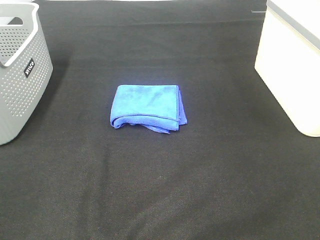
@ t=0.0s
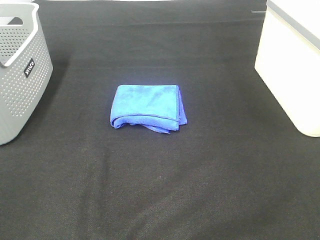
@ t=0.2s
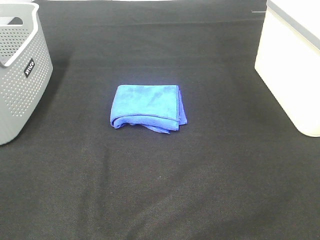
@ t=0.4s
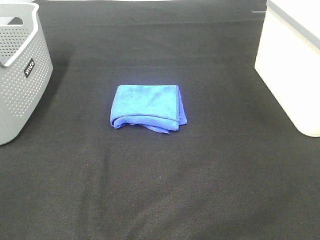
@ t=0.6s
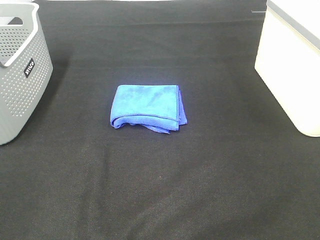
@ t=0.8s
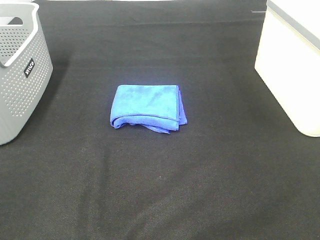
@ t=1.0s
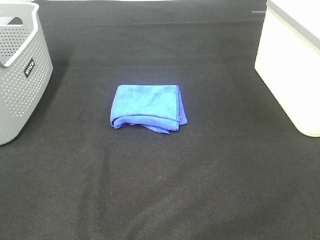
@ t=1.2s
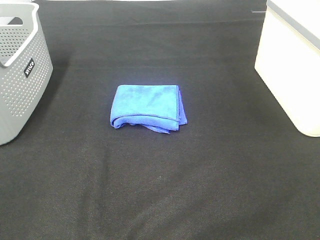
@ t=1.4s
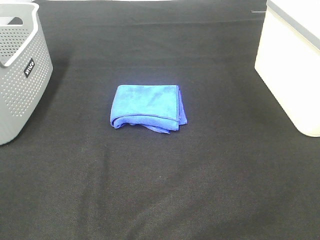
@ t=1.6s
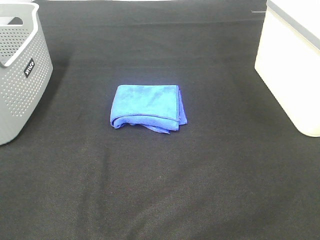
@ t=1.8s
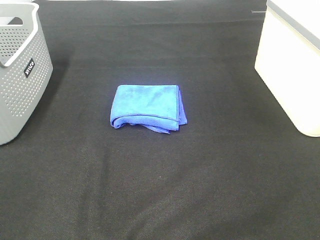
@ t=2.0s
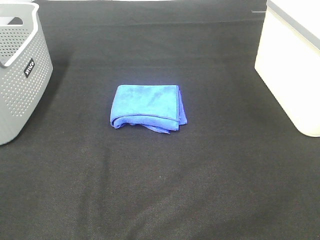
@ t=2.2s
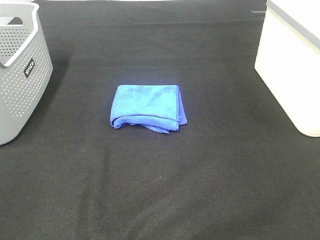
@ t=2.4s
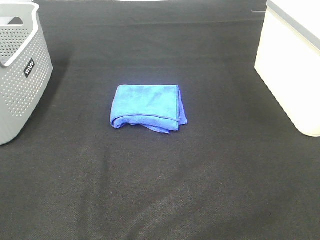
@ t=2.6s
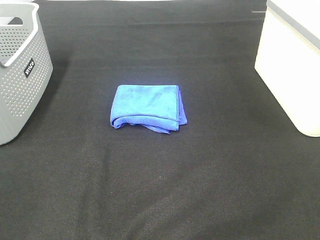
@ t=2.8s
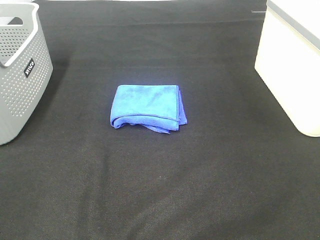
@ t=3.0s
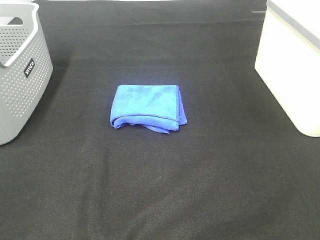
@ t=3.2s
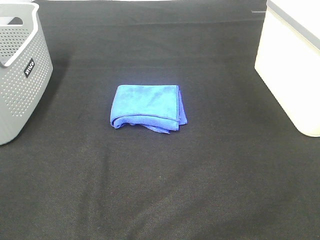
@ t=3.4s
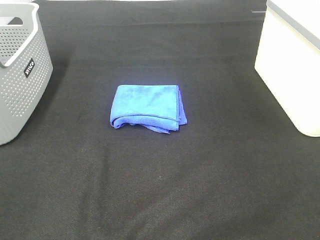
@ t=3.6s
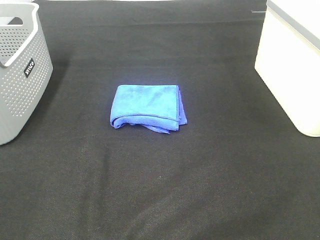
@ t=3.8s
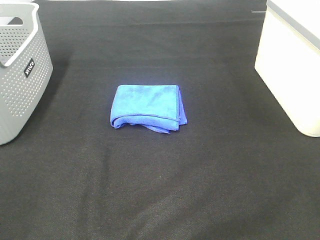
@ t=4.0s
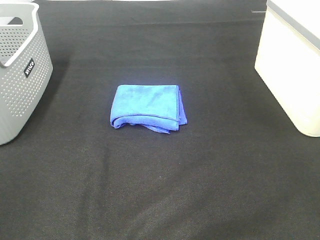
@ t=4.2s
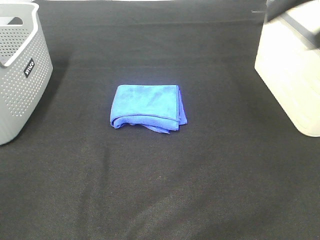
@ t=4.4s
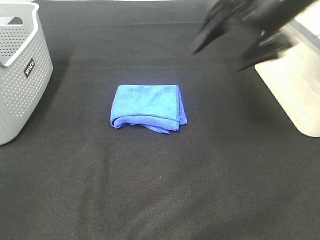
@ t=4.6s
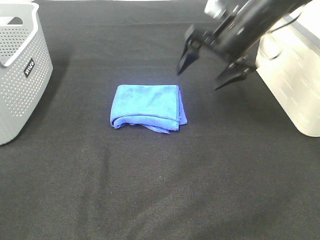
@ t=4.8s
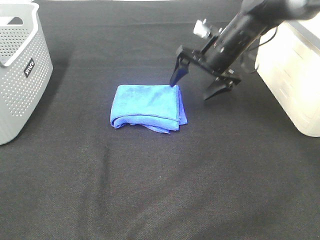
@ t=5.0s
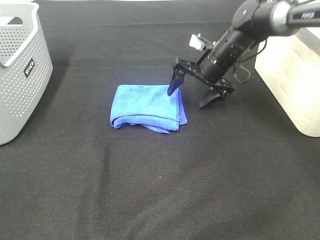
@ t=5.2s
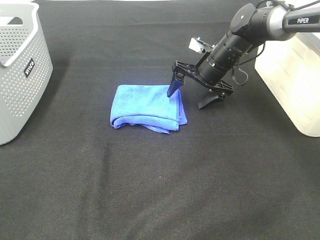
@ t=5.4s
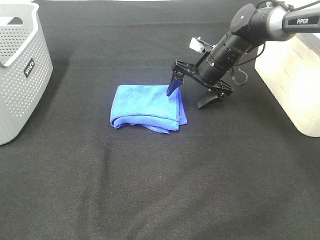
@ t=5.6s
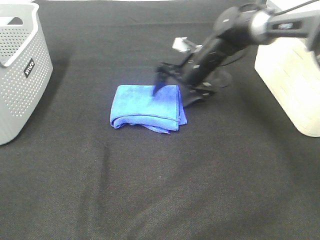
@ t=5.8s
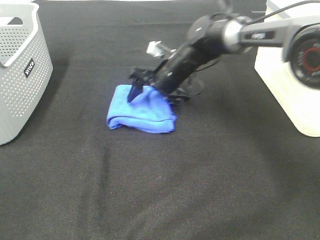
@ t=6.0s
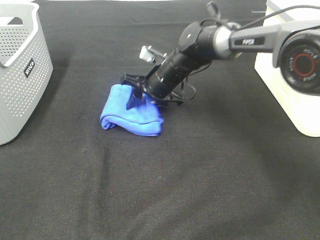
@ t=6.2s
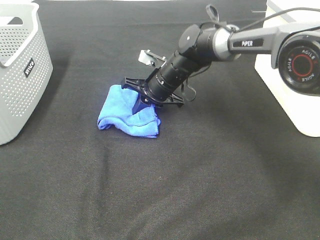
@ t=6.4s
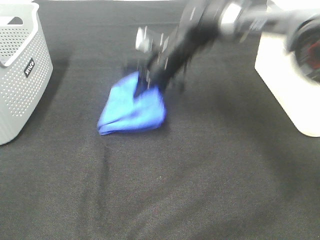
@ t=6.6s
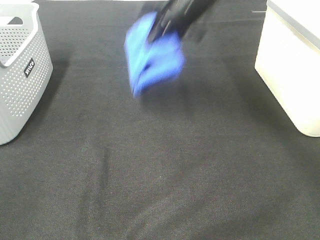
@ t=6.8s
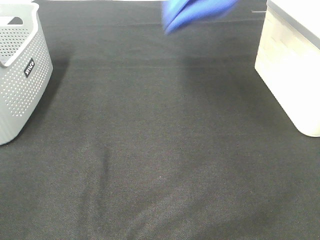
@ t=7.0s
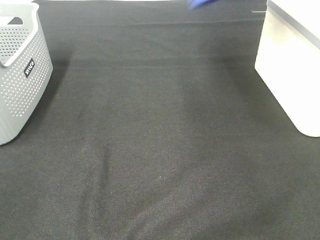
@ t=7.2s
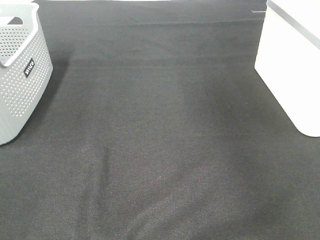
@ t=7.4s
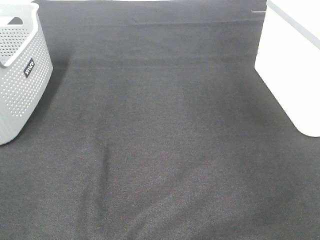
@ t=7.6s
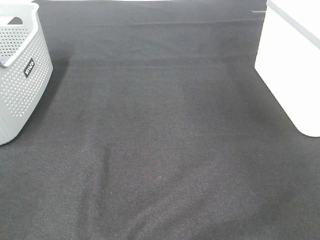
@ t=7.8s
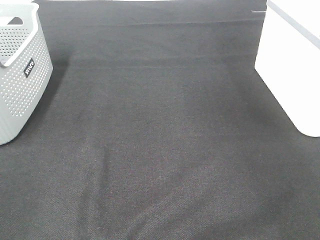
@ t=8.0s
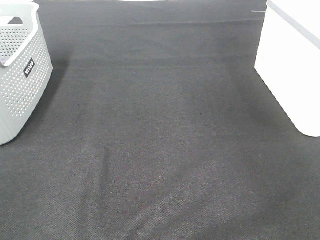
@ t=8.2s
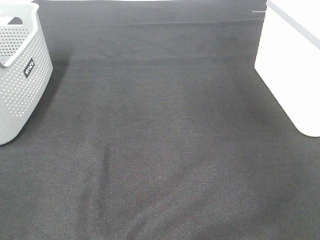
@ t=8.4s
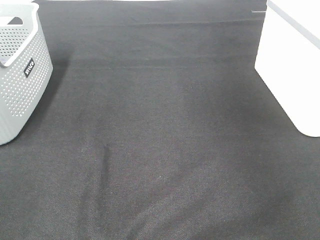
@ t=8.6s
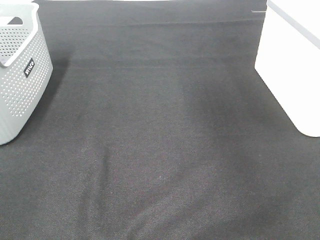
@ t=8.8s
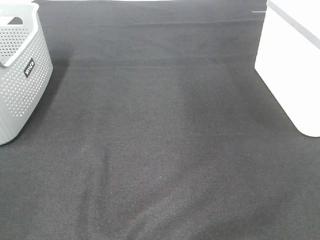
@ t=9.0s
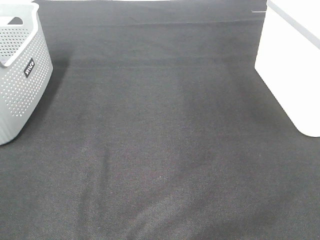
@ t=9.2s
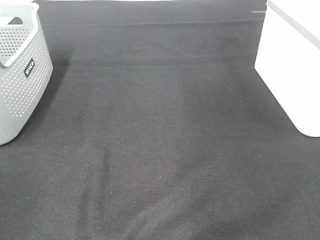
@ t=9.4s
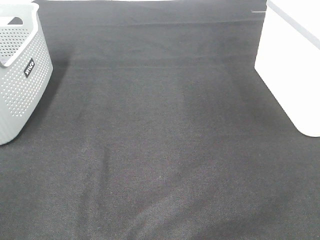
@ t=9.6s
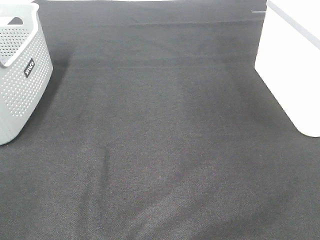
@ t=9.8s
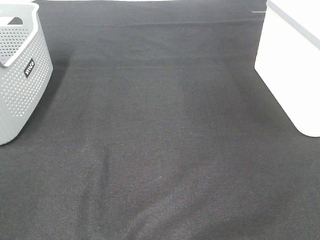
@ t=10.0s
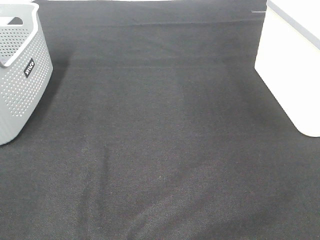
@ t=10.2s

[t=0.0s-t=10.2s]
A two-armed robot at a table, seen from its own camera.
Step, t=0.0s to t=6.2s: Right hand: grab the folded blue towel.
Step, t=6.4s to t=8.0s: Right hand: place the blue towel in right basket.
t=0.0s to t=3.0s: Both grippers stay put.
t=3.0s to t=4.4s: The right gripper is displaced forward by approximately 25 cm.
t=4.4s to t=5.8s: The right gripper is displaced downward, forward and to the left by about 35 cm.
t=5.8s to t=7.2s: The right gripper shifts some 35 cm upward and to the right, and closes.
t=7.2s to t=8.8s: The right gripper goes to the right and returns, some 20 cm each way, and opens its fingers.

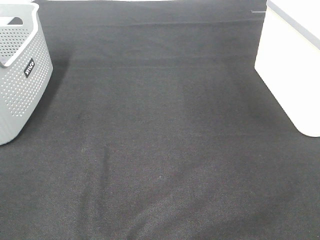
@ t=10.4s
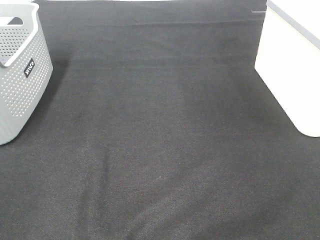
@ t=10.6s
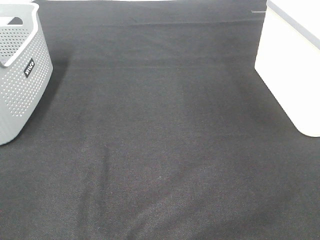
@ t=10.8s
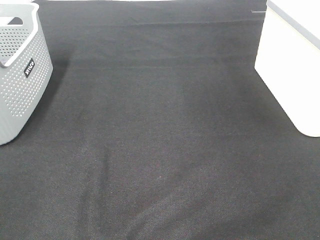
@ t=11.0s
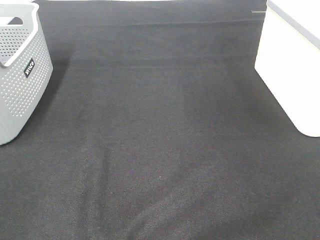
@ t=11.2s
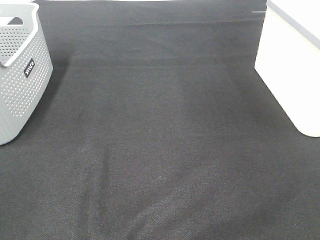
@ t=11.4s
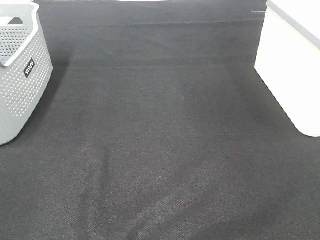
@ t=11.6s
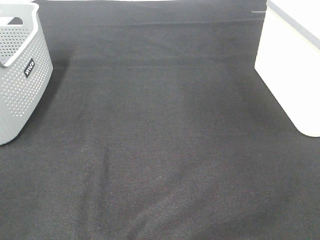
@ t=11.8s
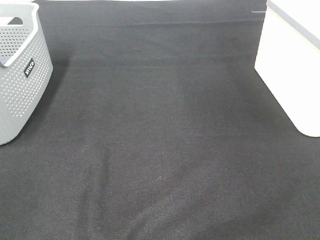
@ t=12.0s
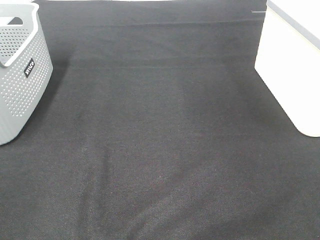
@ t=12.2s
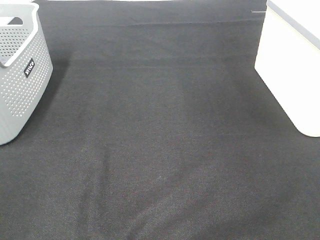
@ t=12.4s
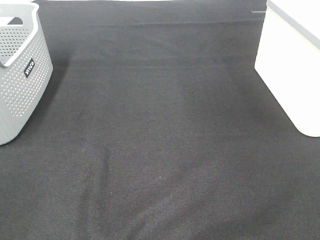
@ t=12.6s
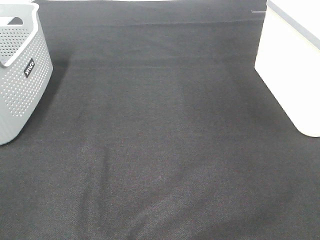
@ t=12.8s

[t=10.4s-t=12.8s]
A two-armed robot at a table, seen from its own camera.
t=11.6s to t=12.8s: Neither gripper changes place.

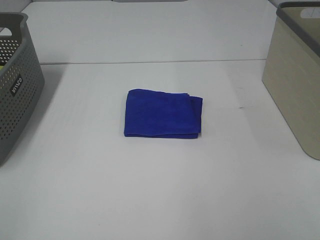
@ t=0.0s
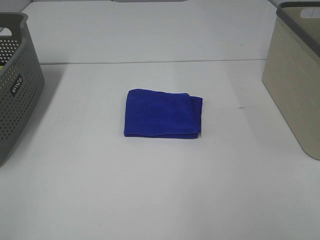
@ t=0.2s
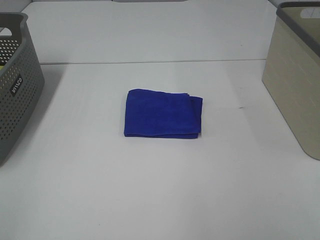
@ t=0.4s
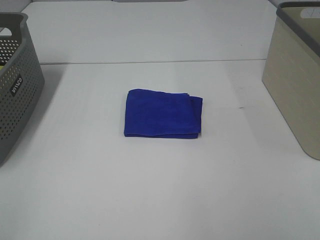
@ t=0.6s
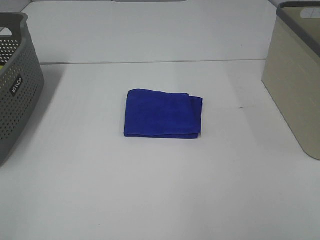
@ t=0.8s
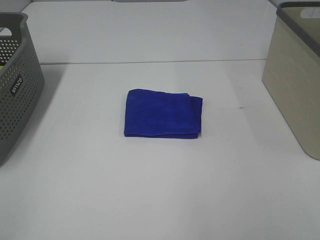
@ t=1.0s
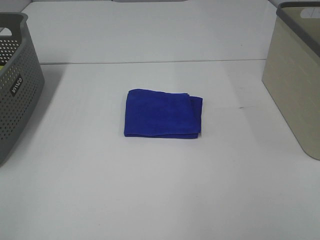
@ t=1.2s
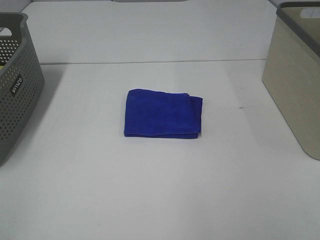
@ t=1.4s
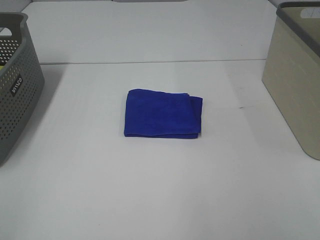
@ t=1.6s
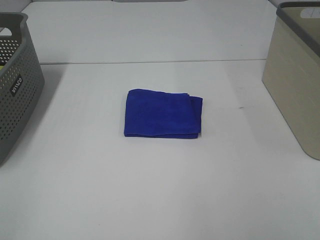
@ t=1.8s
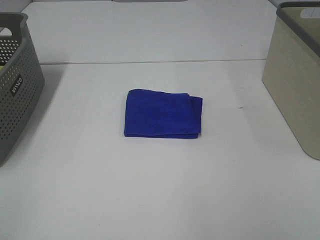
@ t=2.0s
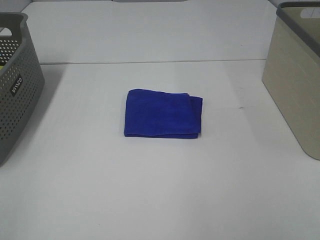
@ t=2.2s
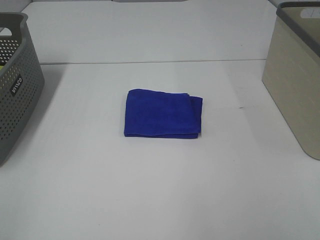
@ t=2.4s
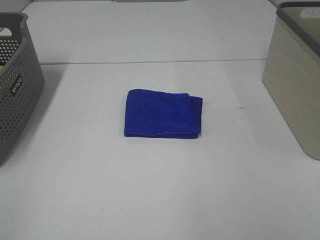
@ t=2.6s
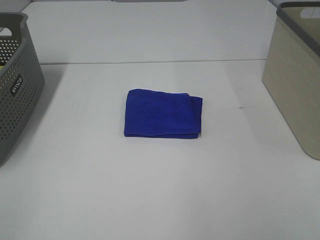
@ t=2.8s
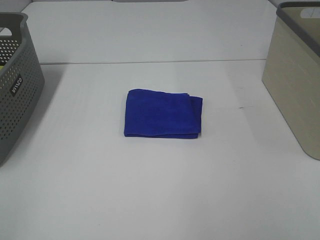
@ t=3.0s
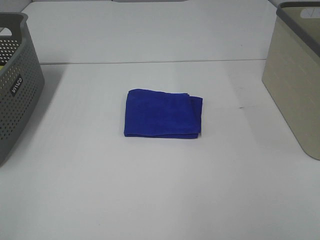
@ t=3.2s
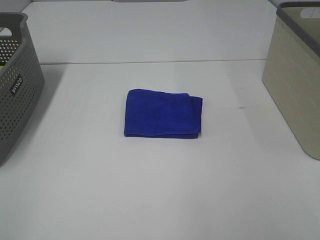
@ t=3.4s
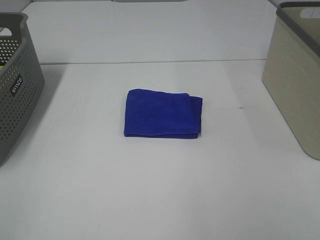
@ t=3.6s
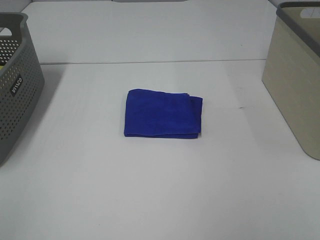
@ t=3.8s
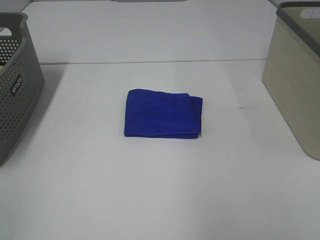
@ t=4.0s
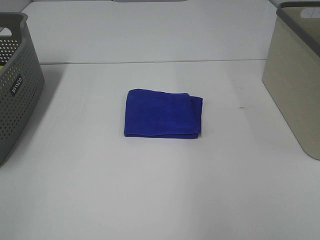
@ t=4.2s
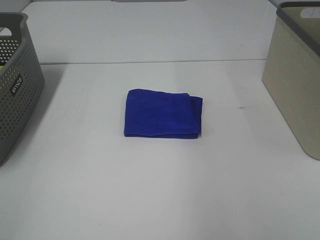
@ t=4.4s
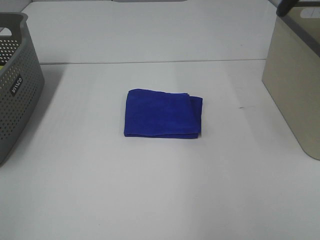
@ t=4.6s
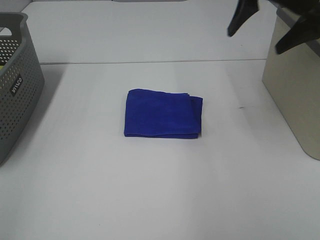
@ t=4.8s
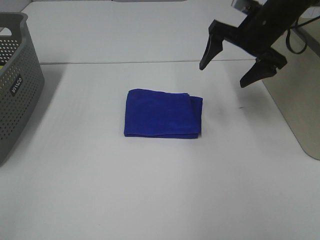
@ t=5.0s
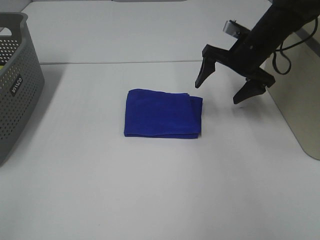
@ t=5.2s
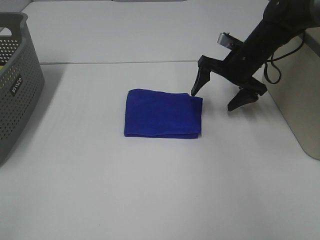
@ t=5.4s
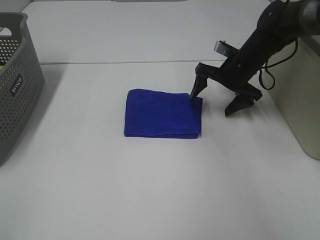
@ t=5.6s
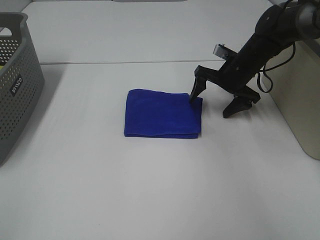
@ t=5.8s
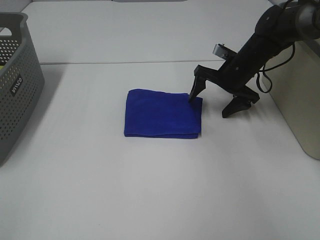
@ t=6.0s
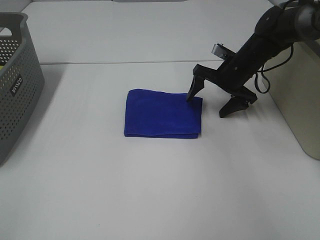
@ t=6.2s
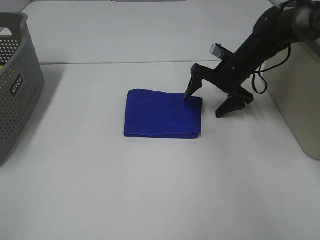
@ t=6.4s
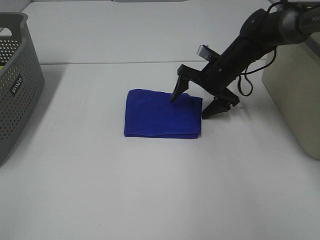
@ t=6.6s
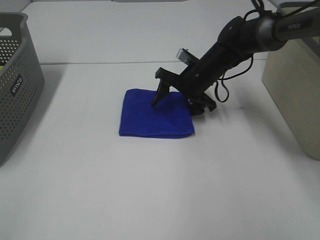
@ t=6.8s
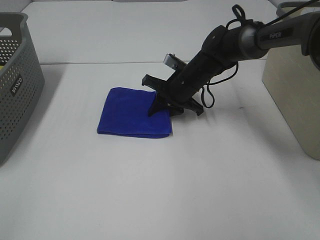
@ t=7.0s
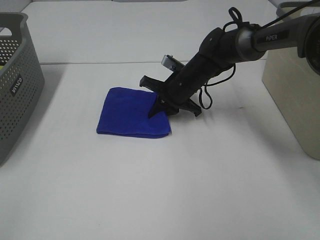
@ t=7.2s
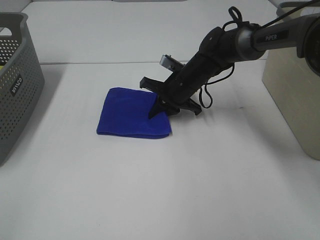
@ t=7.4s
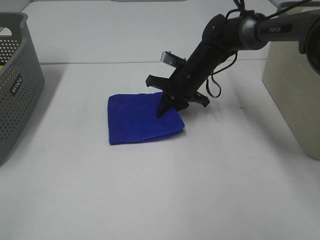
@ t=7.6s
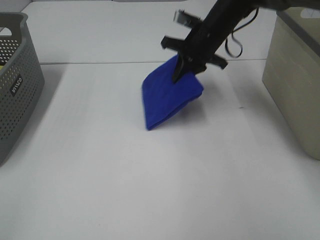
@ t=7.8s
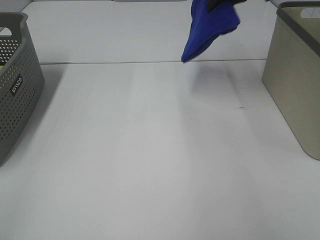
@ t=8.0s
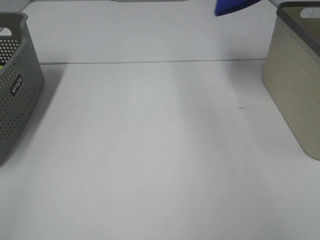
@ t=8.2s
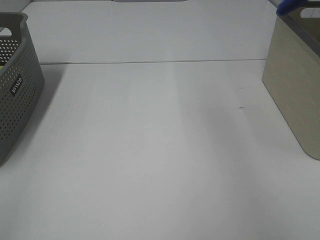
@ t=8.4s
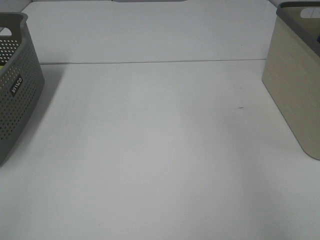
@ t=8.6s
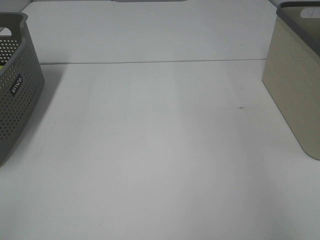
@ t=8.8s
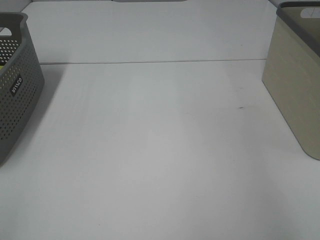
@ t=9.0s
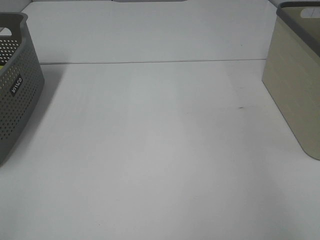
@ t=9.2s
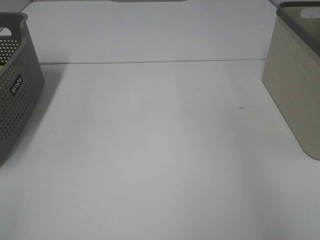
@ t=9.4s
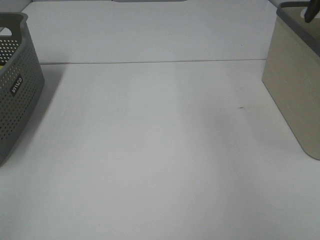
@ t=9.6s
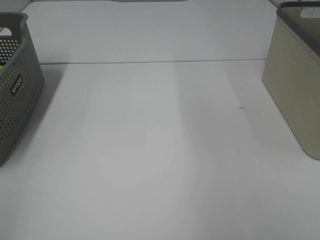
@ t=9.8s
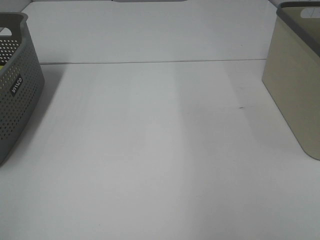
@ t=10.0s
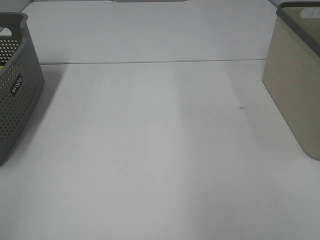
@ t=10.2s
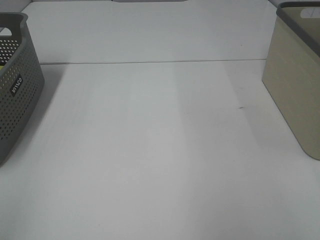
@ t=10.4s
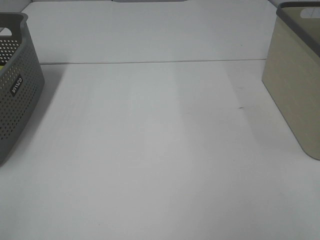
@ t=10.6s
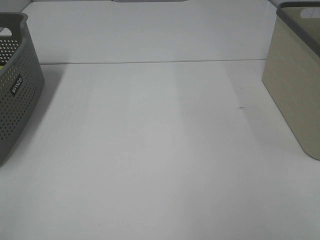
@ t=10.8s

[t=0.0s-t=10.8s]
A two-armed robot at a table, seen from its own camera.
Step, t=0.0s to t=7.2s: Right hand: grab the folded blue towel.
Step, t=7.4s to t=9.4s: Right hand: place the blue towel in right basket.
t=0.0s to t=3.0s: Neither gripper changes place.
t=4.6s to t=6.2s: The right gripper travels downward and forward by approximately 30 cm.
t=6.2s to t=7.8s: The right gripper goes about 10 cm upward and to the left, and closes.
t=7.8s to t=9.2s: The right gripper shifts approximately 30 cm to the right and upward, and opens.
